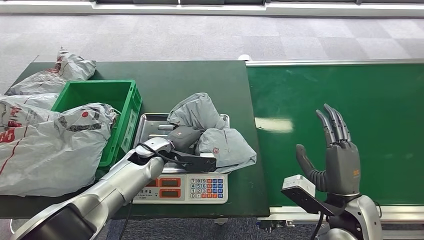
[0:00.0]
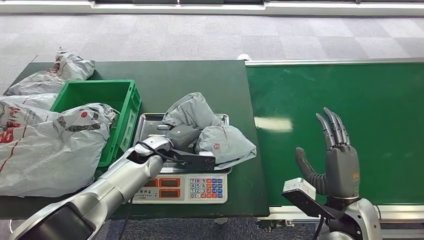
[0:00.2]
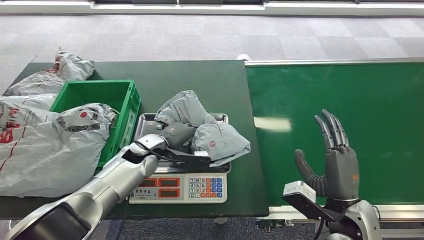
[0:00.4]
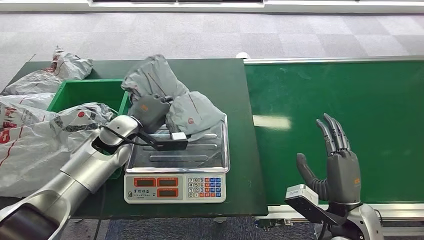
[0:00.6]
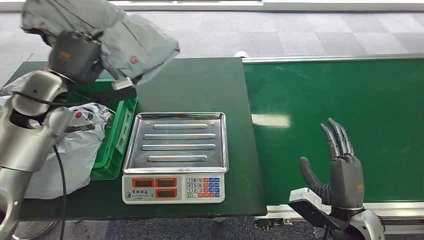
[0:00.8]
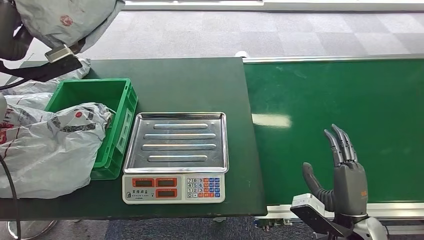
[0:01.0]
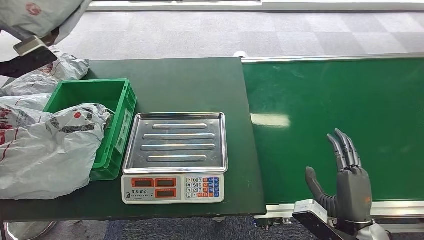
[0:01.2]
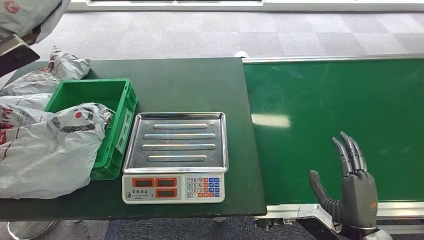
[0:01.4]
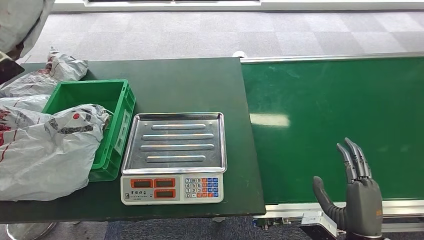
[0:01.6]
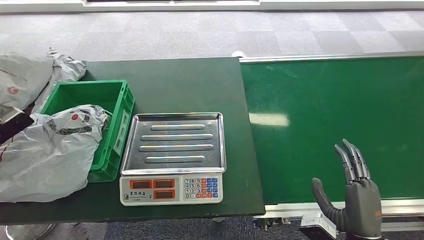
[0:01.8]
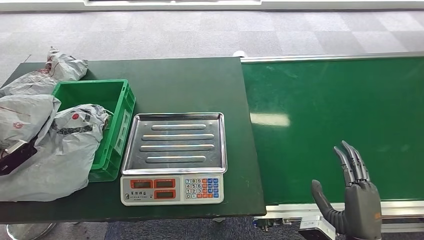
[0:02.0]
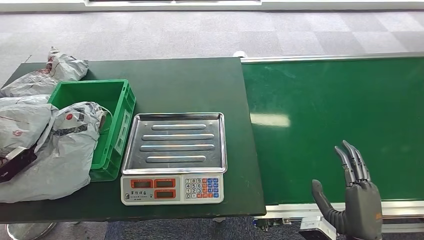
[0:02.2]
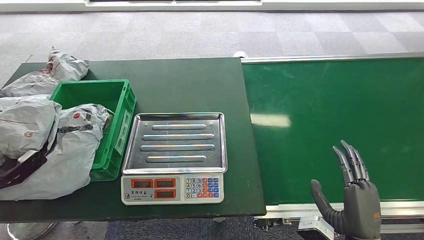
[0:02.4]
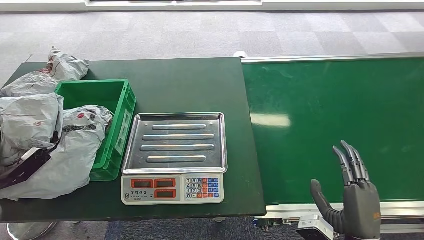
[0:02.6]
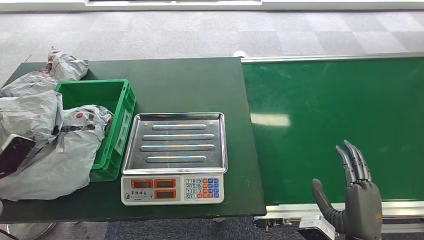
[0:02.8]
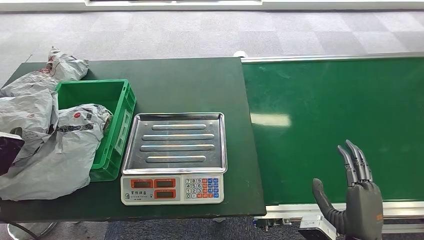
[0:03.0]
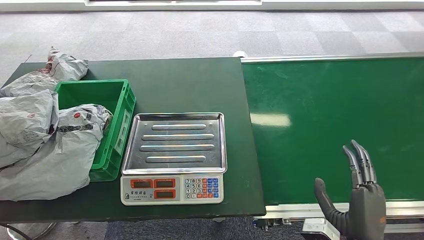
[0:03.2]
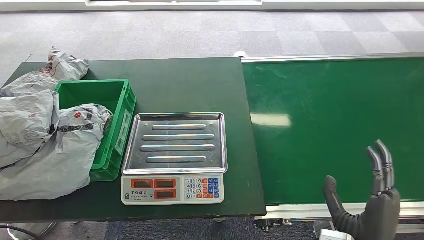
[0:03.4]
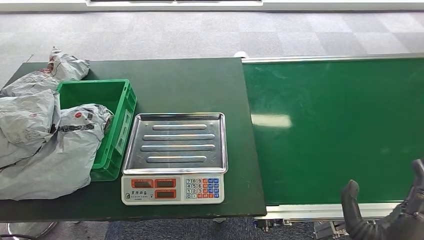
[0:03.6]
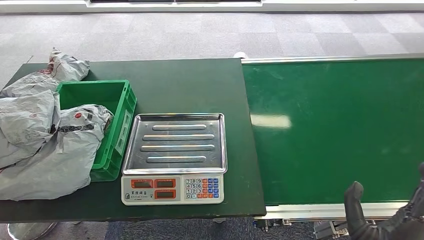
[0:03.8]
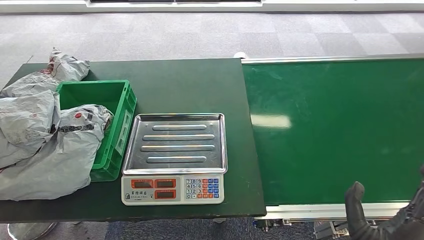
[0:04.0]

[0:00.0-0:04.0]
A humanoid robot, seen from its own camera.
Step, 0:01.0 to 0:04.0: Place the package into the parcel locker.
0:01.4 to 0:02.6: The left hand shifts roughly 30 cm downward and backward.
0:02.6 to 0:04.0: The left hand goes roughly 20 cm to the right, upward and backward.
